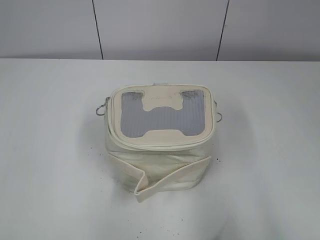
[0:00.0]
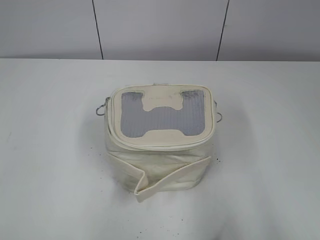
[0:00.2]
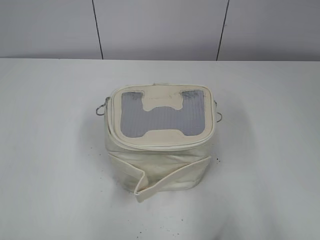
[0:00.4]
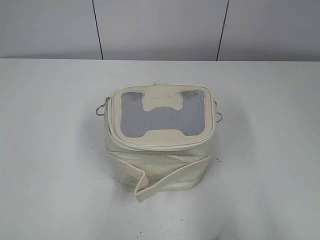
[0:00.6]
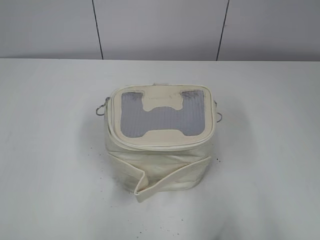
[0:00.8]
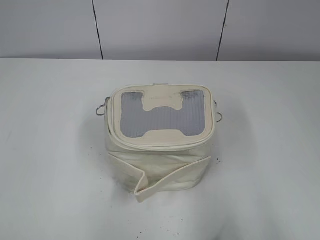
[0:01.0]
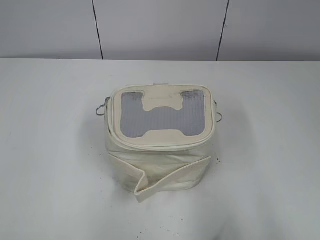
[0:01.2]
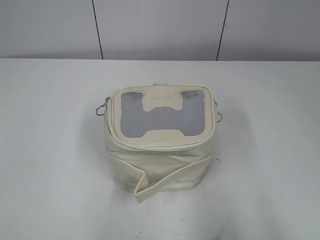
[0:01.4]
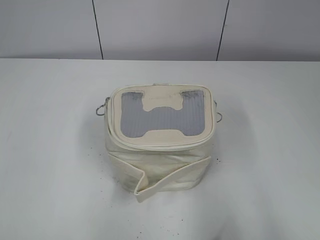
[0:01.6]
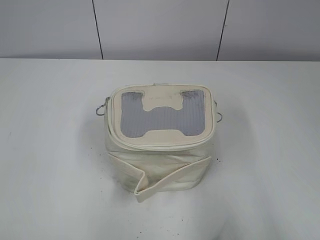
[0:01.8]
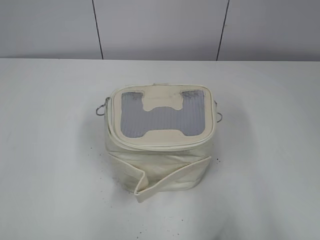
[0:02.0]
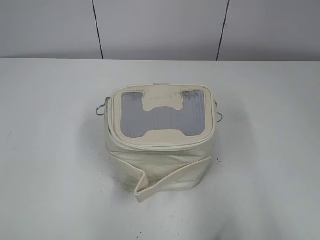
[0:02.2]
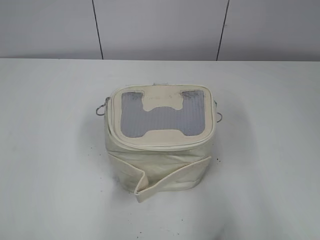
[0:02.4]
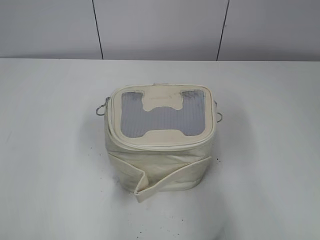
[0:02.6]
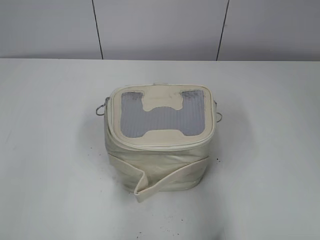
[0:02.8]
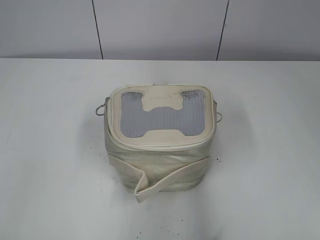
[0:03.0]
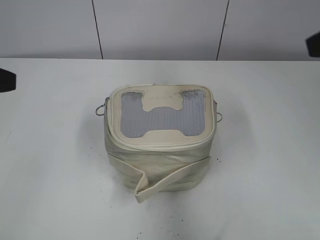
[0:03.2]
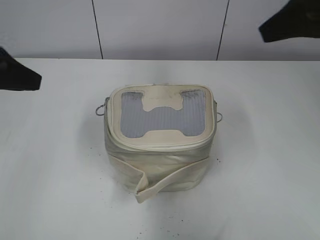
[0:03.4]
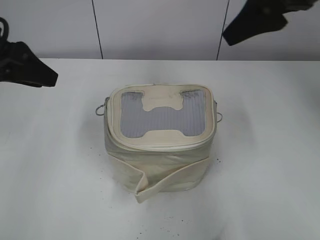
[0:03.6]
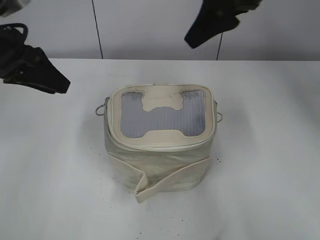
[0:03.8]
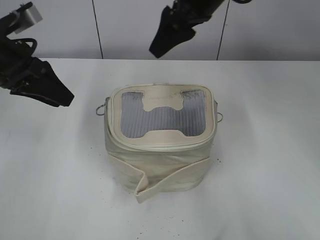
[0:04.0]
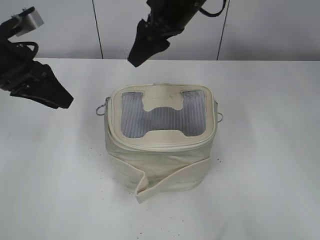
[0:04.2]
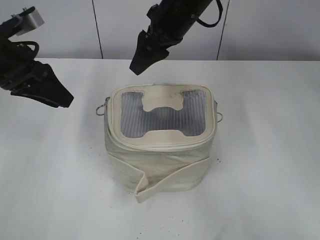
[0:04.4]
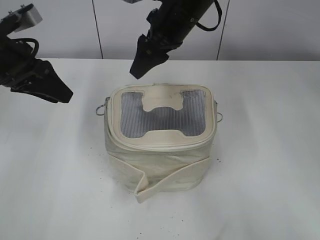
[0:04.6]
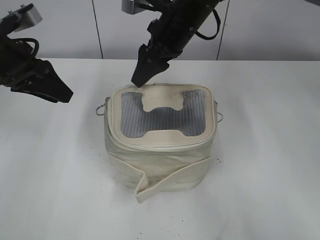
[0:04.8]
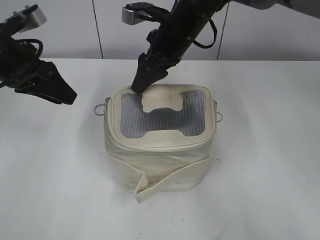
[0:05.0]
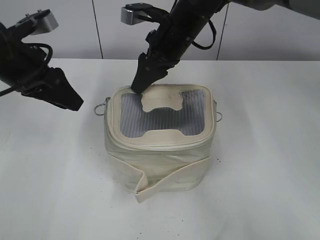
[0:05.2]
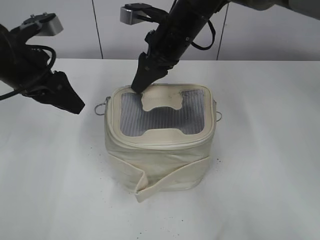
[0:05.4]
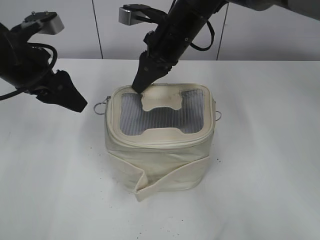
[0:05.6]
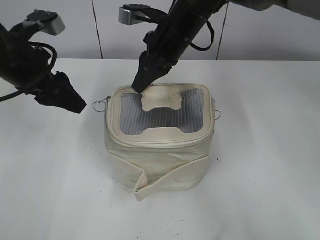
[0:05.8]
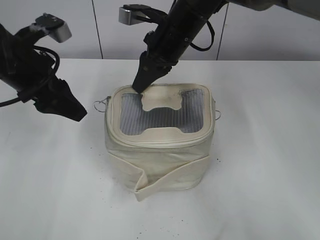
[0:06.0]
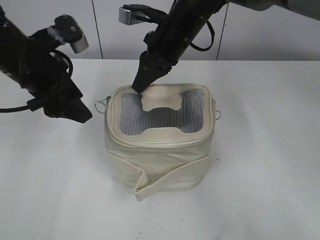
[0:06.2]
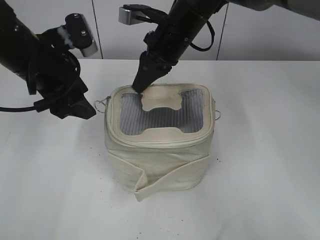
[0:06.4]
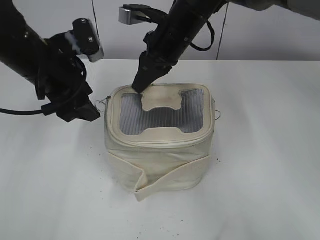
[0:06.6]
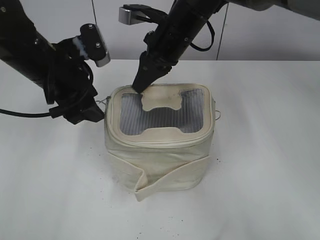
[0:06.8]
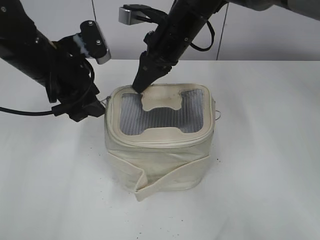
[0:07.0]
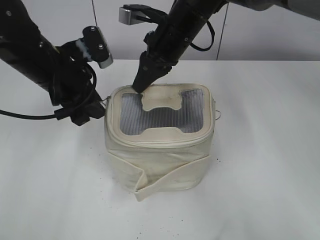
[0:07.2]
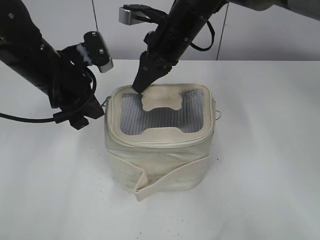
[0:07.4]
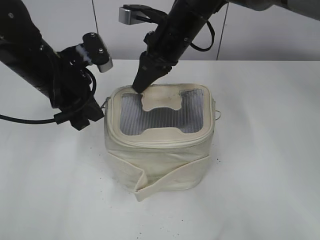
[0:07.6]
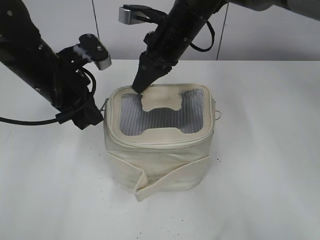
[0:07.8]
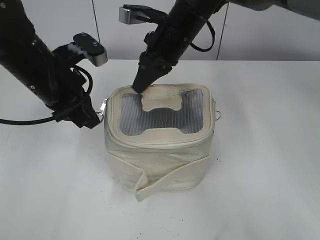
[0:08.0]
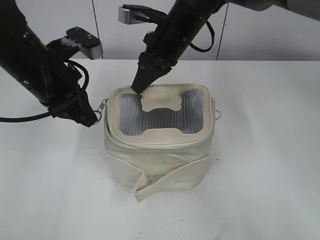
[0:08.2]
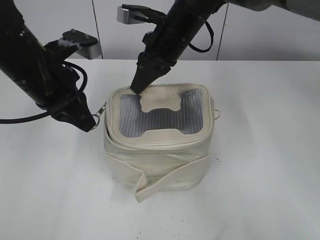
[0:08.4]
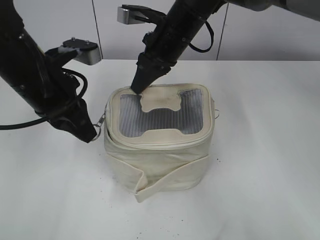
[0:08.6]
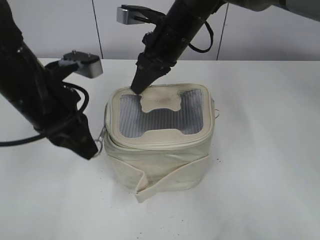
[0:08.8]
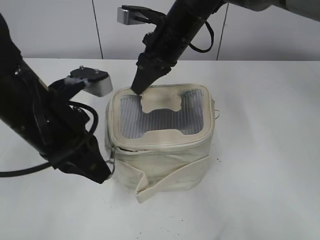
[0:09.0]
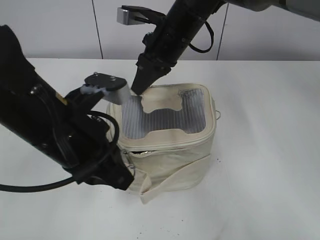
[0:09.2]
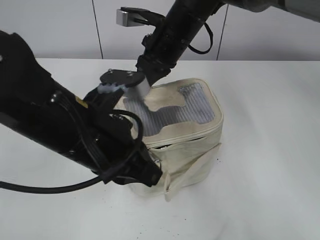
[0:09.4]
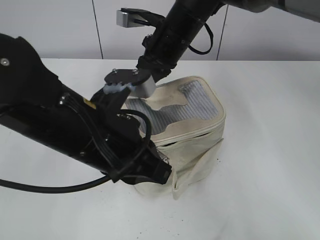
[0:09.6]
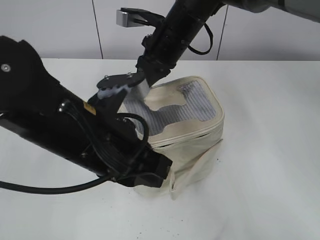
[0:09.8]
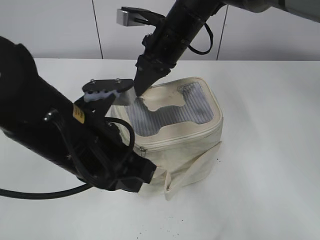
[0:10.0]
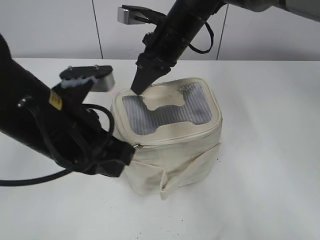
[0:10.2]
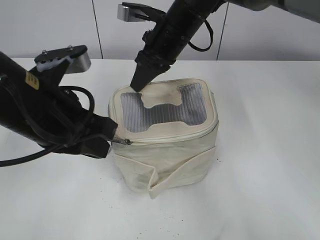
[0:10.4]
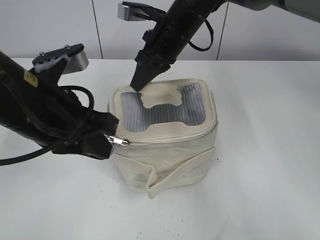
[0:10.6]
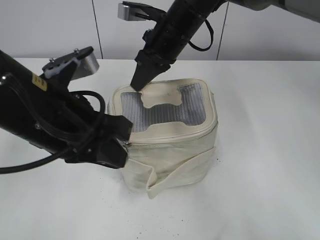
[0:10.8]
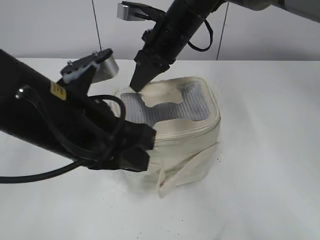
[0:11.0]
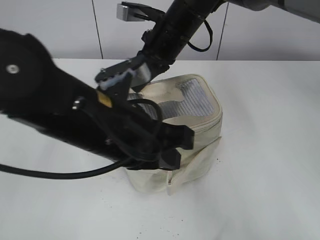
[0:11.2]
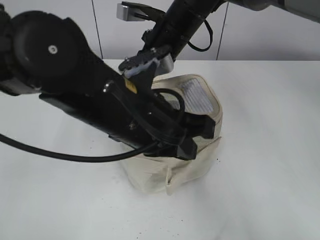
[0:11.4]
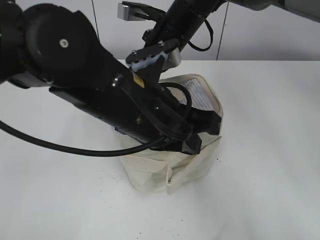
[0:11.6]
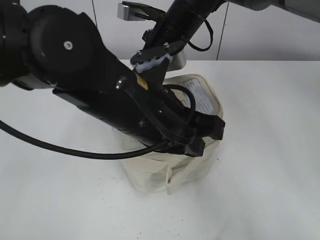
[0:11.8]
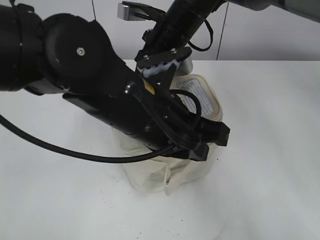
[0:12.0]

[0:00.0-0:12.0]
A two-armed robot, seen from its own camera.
Step, 0:00.0 to 0:11.6: Zip up the bag with your left hand.
0:01.6 to 0:03.0: The left gripper moves forward, approximately 15 cm. Meanwhile the right gripper is displaced forward and upward by roughly 15 cm.
0:03.0 to 0:04.4: The right gripper goes some 35 cm forward and to the left. Meanwhile the left gripper travels forward by roughly 20 cm.
0:04.4 to 0:06.0: The right gripper closes up. Meanwhile the left gripper opens its fingers.
0:06.0 to 0:07.6: The left gripper changes place by some 5 cm, and closes up.
0:07.6 to 0:09.0: The left gripper is displaced backward by about 10 cm.
0:10.4 to 0:12.0: The left gripper is displaced to the right by roughly 10 cm.

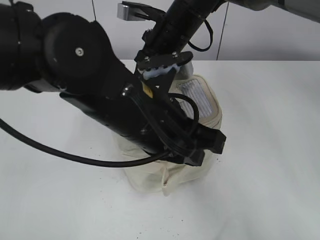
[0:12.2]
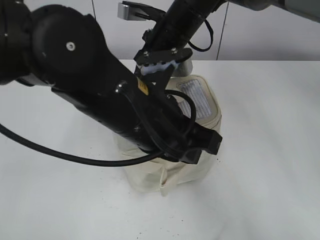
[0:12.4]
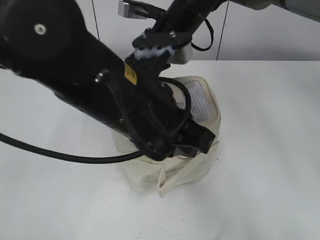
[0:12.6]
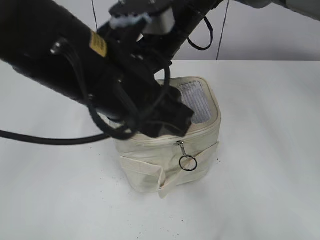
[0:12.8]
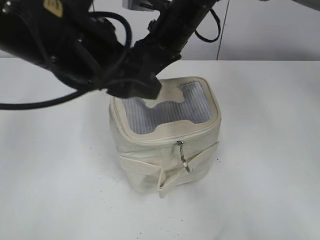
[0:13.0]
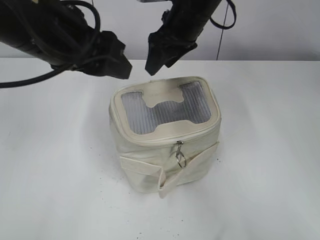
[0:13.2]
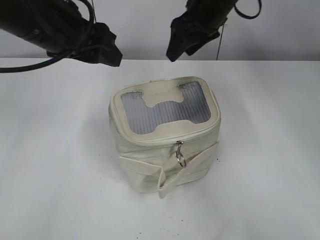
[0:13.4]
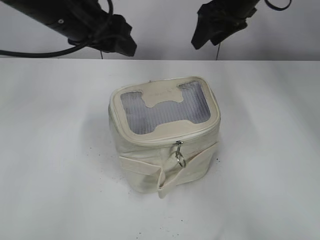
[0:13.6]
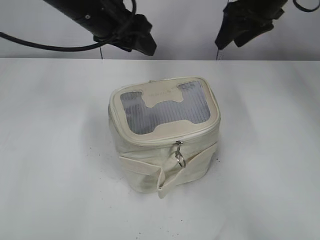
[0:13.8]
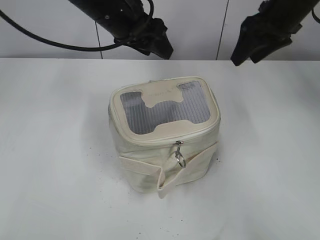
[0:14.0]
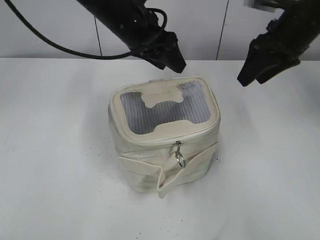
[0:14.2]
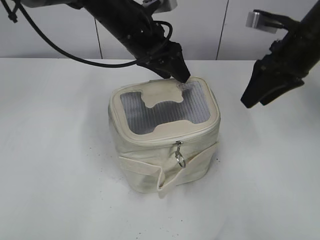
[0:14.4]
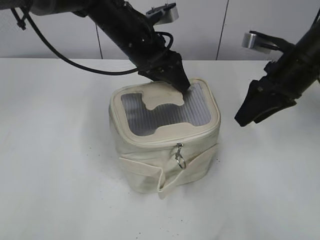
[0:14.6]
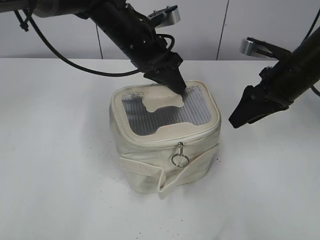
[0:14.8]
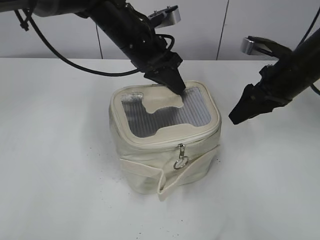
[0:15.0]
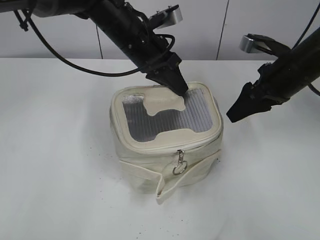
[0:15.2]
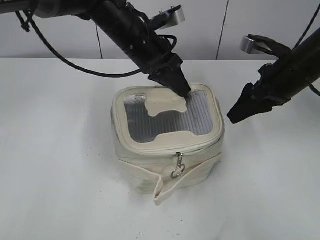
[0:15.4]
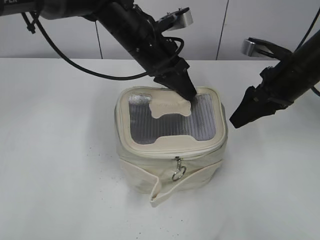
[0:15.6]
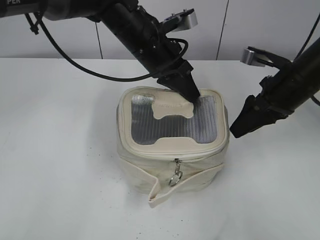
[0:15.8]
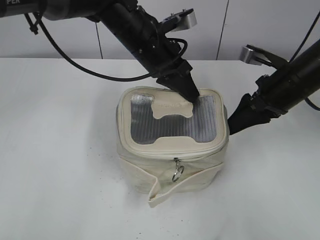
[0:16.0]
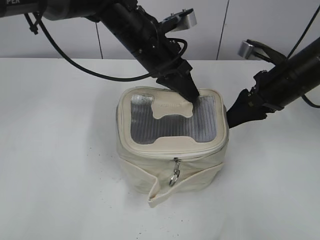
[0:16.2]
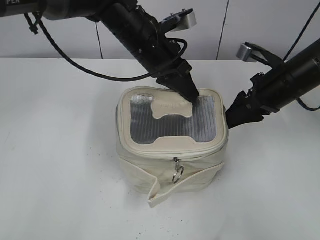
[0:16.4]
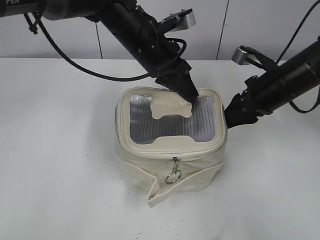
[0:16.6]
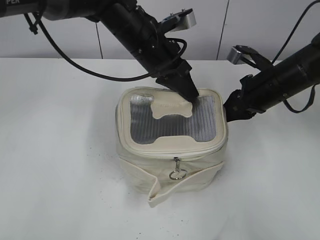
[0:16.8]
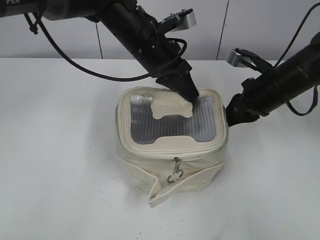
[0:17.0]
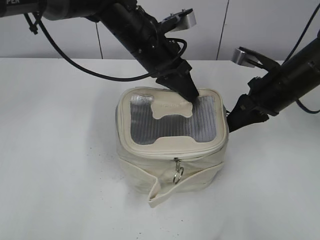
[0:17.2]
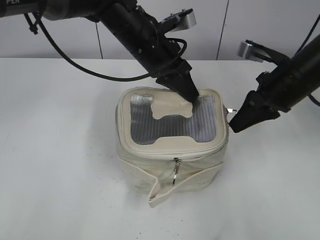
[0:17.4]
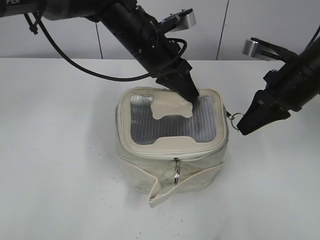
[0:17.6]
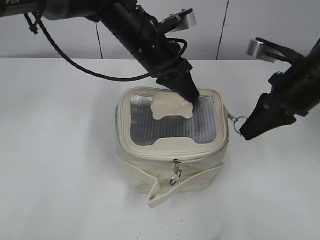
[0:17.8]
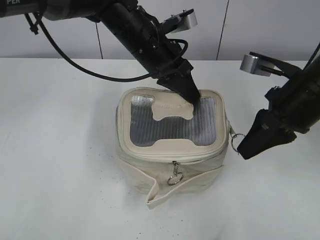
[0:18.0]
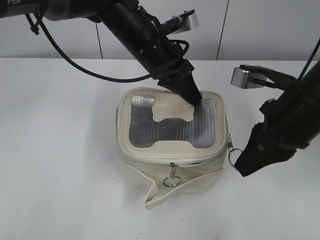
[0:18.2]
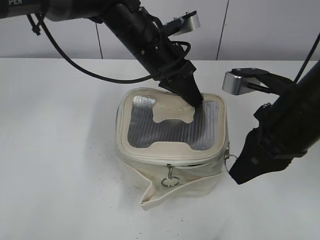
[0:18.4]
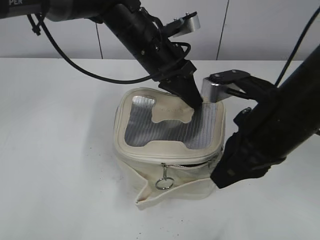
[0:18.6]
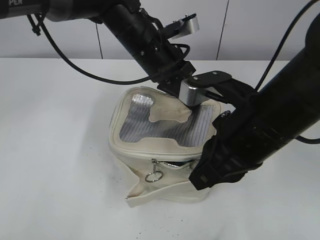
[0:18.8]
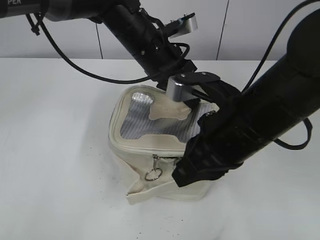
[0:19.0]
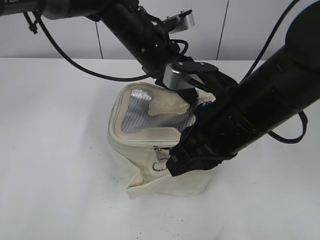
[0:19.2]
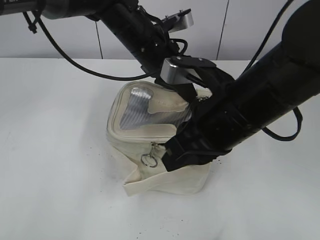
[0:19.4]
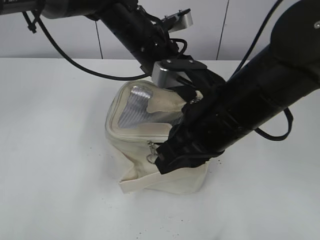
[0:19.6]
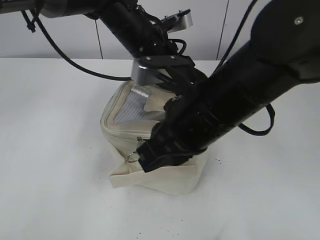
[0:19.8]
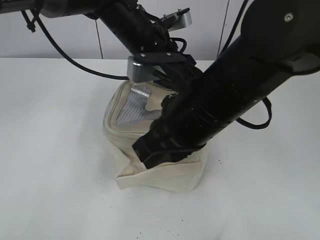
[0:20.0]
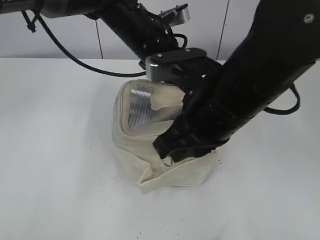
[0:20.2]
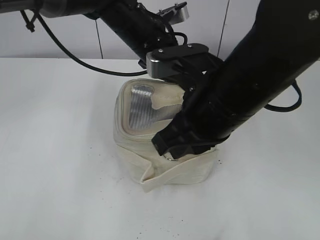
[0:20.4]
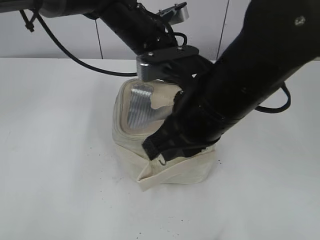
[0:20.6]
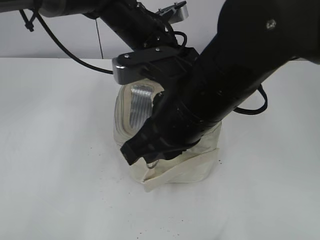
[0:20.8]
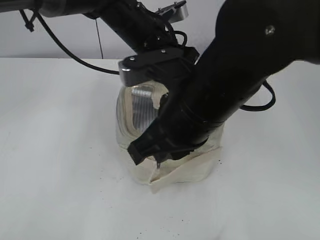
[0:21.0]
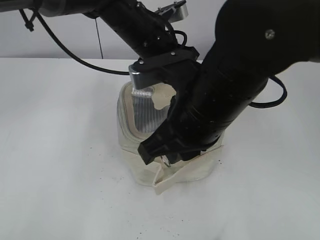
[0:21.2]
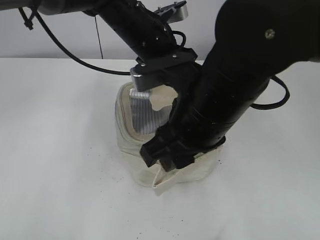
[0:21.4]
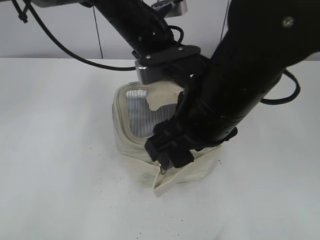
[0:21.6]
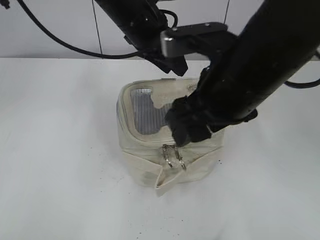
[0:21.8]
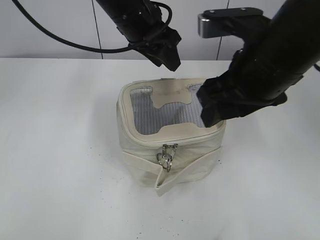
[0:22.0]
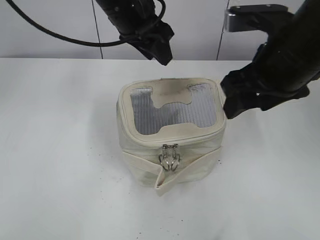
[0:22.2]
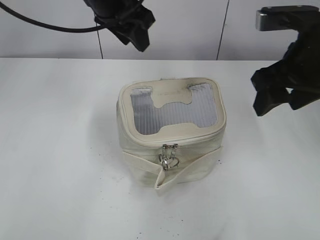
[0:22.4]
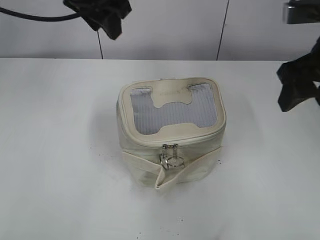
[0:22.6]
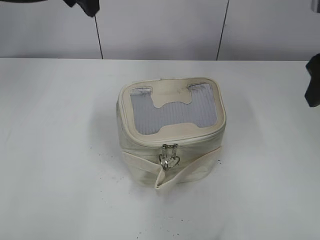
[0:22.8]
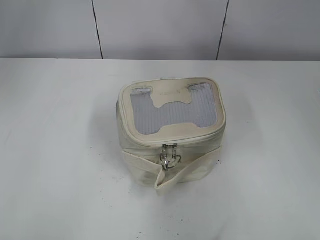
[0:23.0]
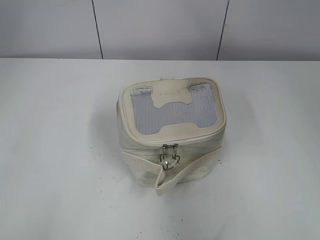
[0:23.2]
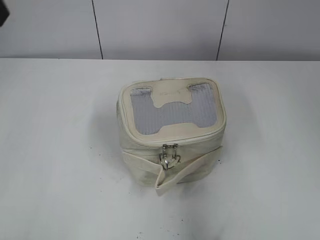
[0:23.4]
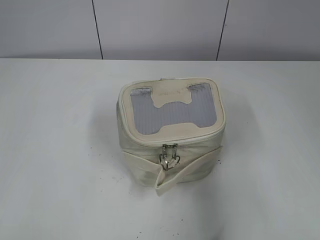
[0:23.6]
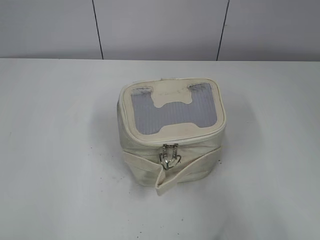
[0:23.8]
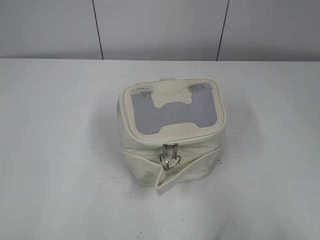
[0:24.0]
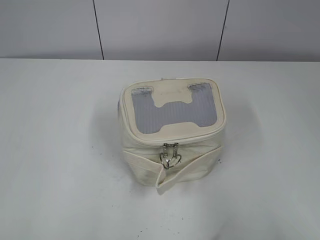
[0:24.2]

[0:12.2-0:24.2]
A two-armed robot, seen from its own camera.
Step, 0:13.2 to 0:20.6: Zip up the bag with your right hand.
Step, 0:20.8 to 0:21.6: Hold the bag with your left hand.
0:12.2 to 0:13.8: The right gripper travels to the right by approximately 15 cm, and opens up, while the left gripper heads forward and to the left, covering some 15 cm, and opens.
0:13.8 to 0:15.2: The left gripper travels downward and to the right by approximately 10 cm, and closes up. Meanwhile the right gripper moves backward and downward, approximately 15 cm.
0:15.2 to 0:16.6: The grippers make only small movements.
0:16.6 to 0:18.2: The right gripper shifts some 10 cm backward and upward, and closes its fingers.
0:18.2 to 0:19.8: The right gripper moves to the left, approximately 15 cm.
0:21.2 to 0:22.6: The right gripper shifts about 20 cm to the right and forward, and opens; the left gripper moves upward and to the left, some 15 cm, and opens.
0:22.6 to 0:24.2: The left gripper travels backward and to the left by about 40 cm. Meanwhile the right gripper is displaced backward by approximately 30 cm.
